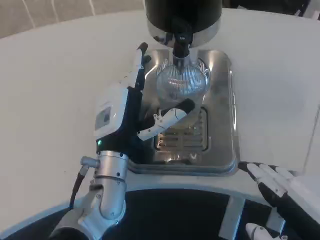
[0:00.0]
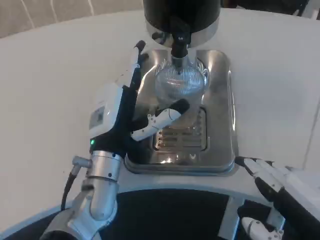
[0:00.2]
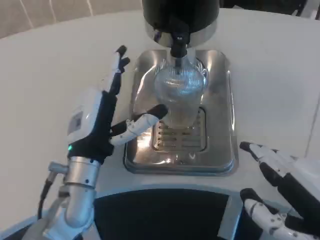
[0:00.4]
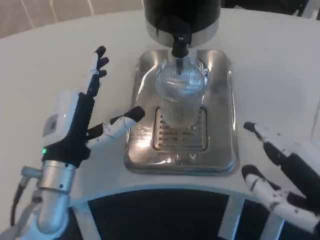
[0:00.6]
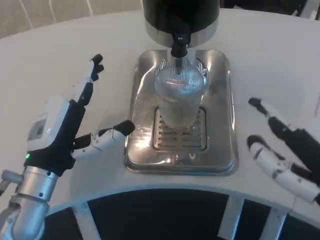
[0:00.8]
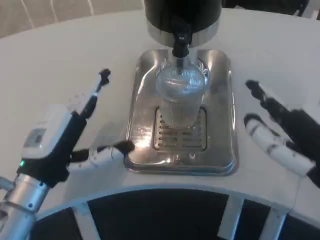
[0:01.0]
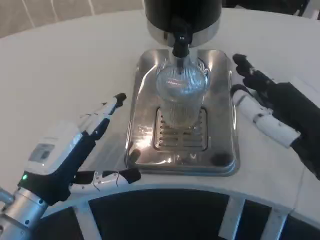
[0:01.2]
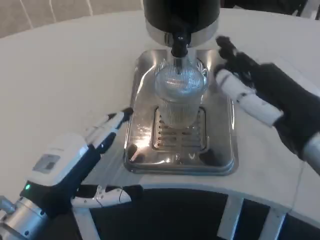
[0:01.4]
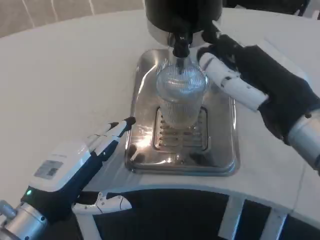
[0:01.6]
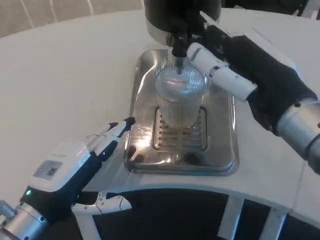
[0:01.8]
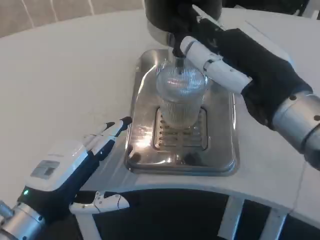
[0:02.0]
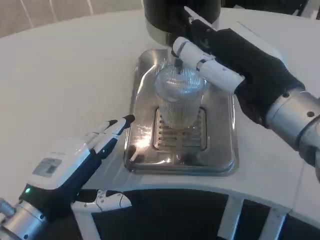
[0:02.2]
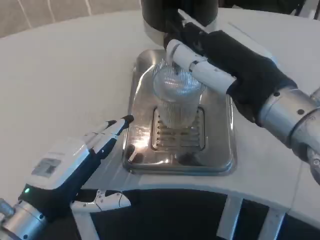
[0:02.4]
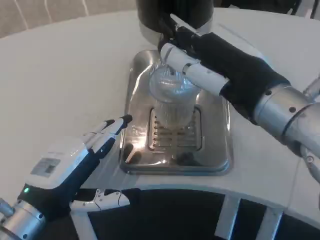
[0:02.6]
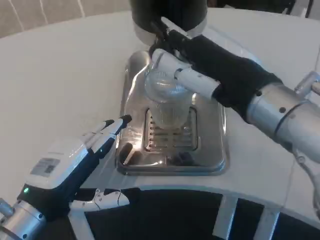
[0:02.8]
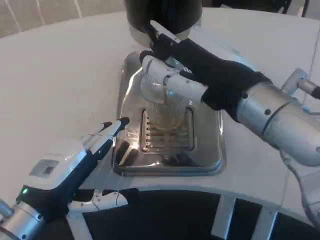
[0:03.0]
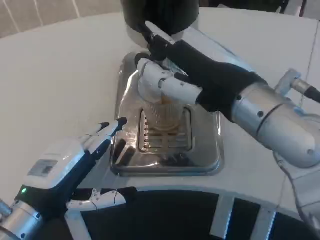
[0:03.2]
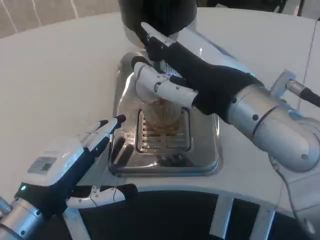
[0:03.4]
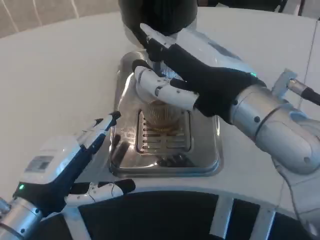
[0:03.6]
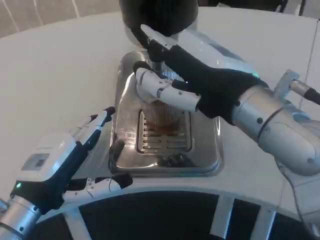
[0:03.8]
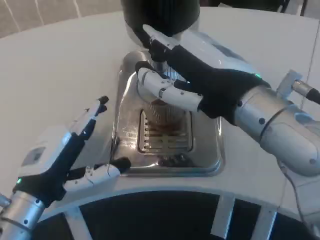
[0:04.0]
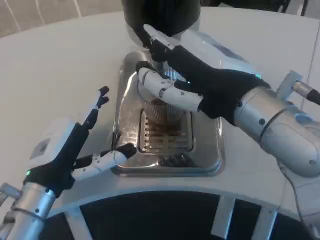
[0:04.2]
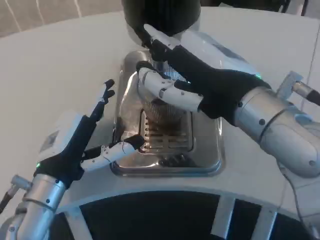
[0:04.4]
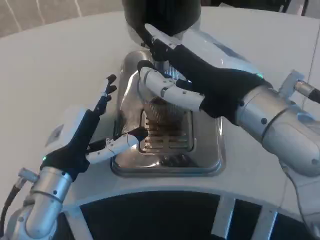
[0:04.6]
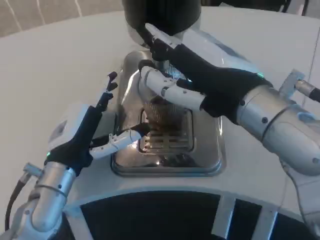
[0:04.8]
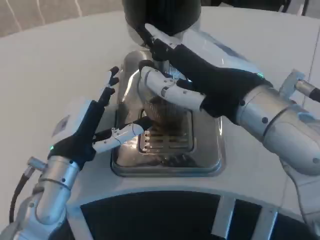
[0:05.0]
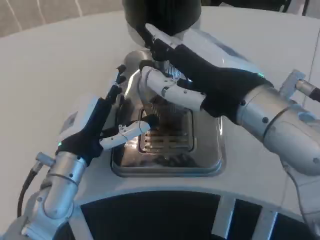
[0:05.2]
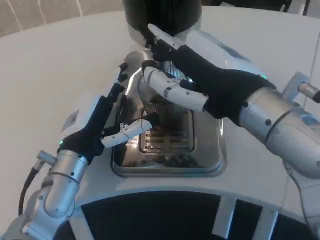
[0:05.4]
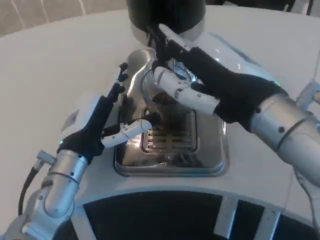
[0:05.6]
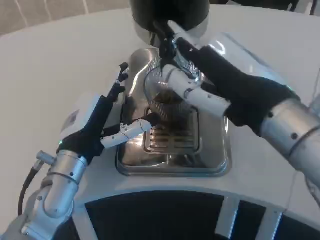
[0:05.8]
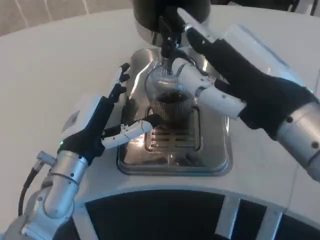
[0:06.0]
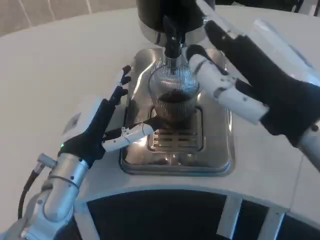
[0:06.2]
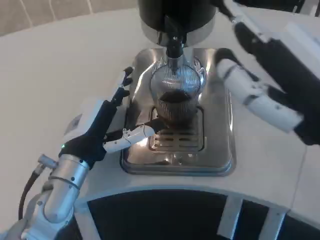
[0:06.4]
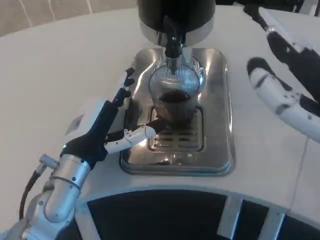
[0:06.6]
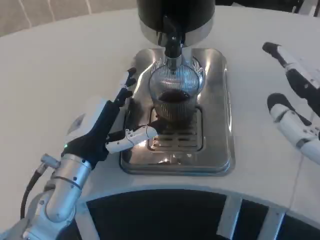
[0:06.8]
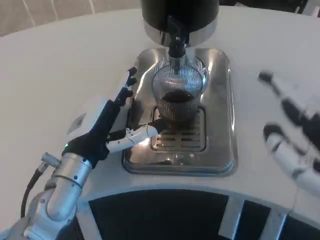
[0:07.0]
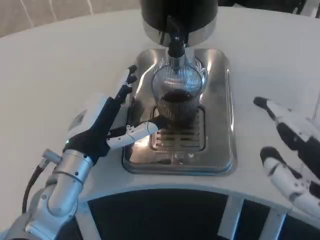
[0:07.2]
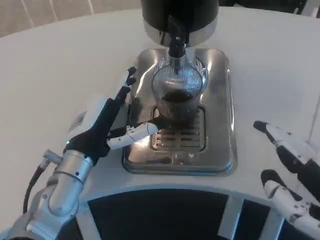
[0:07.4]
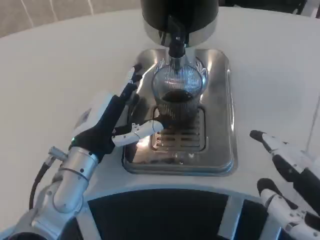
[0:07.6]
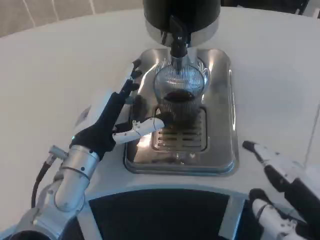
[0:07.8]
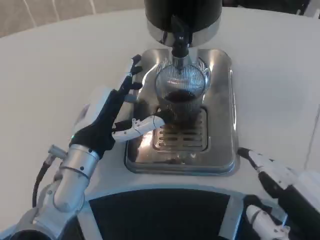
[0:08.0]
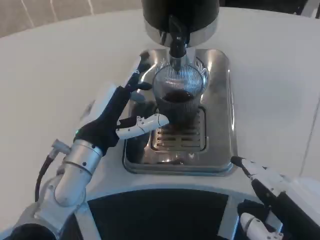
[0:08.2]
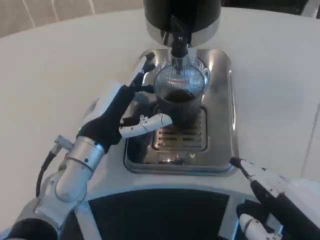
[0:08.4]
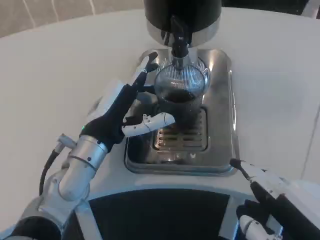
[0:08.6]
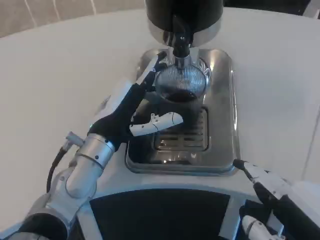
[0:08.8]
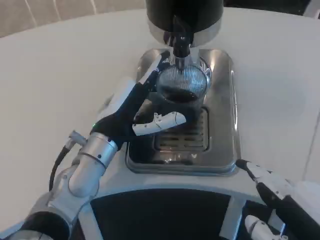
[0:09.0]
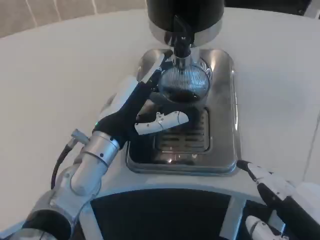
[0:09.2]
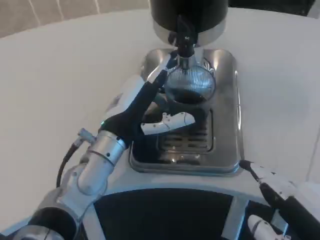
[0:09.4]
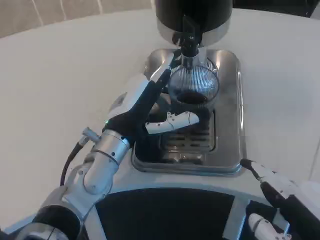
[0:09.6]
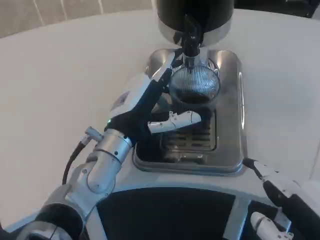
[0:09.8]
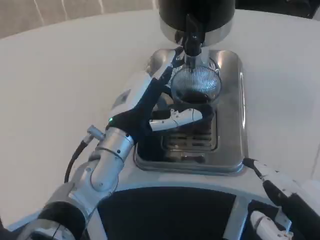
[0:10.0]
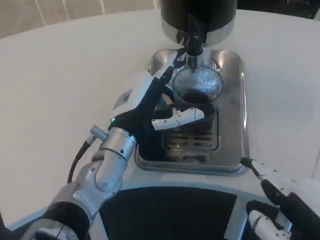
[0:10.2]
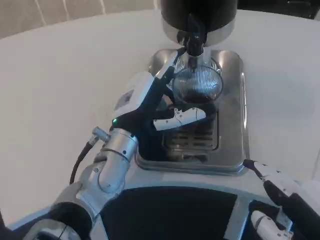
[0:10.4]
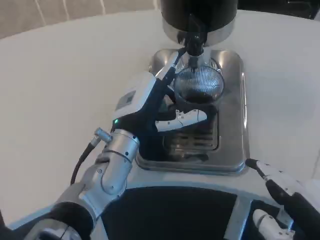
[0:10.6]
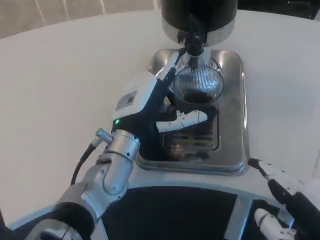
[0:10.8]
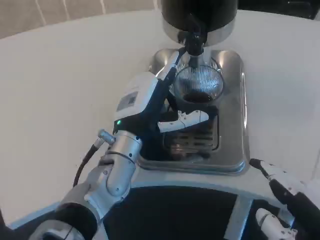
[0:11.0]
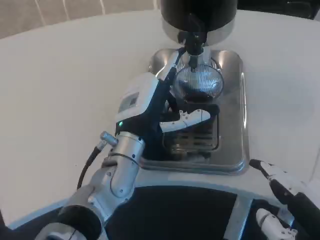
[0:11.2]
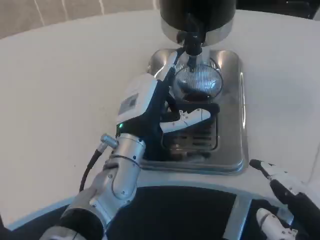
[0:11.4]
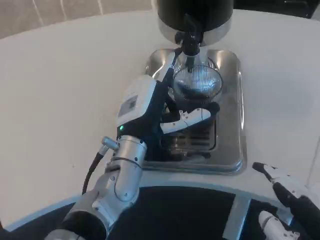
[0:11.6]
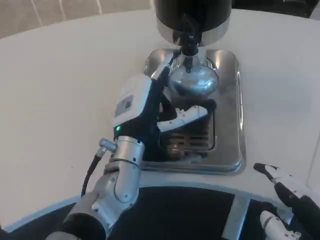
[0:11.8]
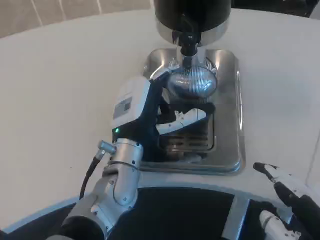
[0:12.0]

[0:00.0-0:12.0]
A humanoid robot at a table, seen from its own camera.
Task of the whole recording: Grasp the cup under the faucet to collect the drink, then remove the cup.
0:00.0 to 0:01.6: The left hand heads to the left and backward, covering approximately 15 cm, while the right hand travels forward and upward by about 10 cm.
0:01.6 to 0:03.0: The right hand moves approximately 5 cm.
0:03.0 to 0:04.4: The left hand shifts by approximately 5 cm.
0:04.4 to 0:06.0: The right hand moves some 5 cm.
0:06.0 to 0:07.6: The right hand shifts approximately 15 cm backward, downward and to the right.
0:10.4 to 0:12.0: The hands move only a little.

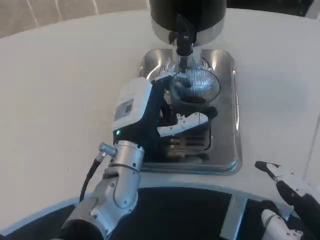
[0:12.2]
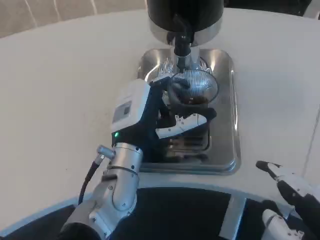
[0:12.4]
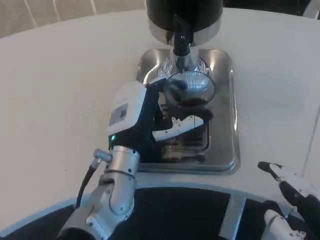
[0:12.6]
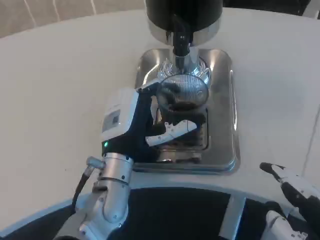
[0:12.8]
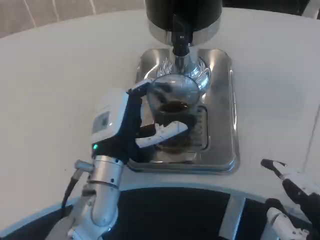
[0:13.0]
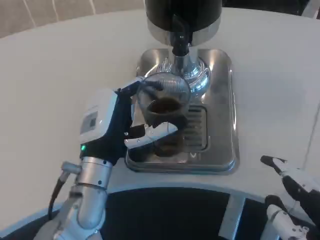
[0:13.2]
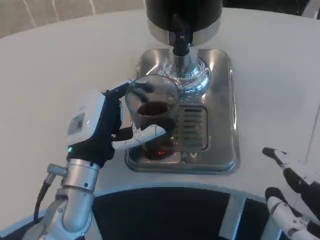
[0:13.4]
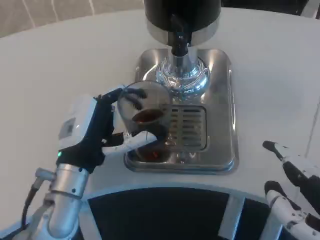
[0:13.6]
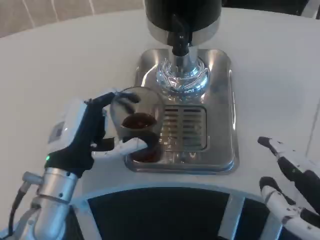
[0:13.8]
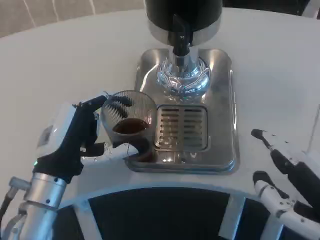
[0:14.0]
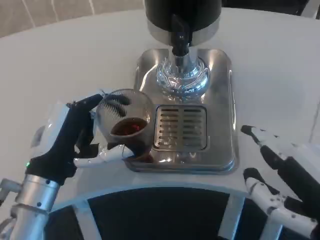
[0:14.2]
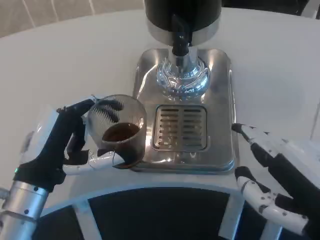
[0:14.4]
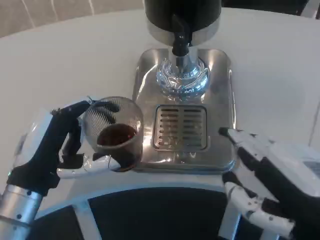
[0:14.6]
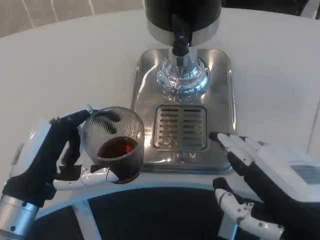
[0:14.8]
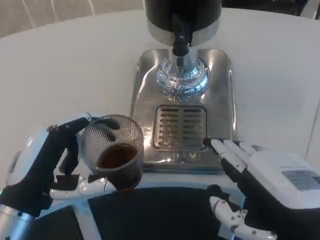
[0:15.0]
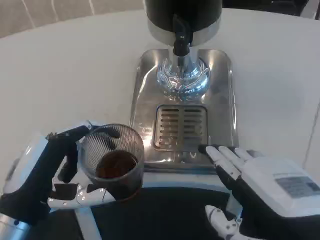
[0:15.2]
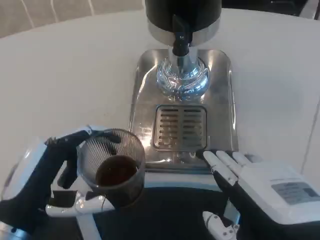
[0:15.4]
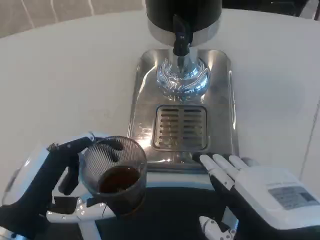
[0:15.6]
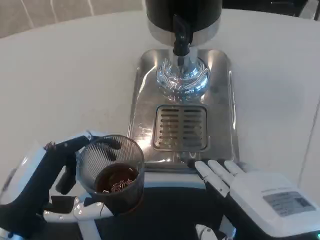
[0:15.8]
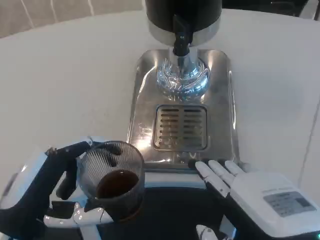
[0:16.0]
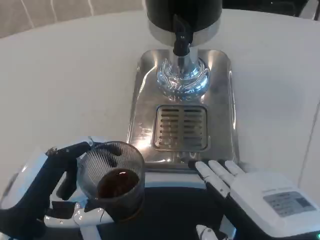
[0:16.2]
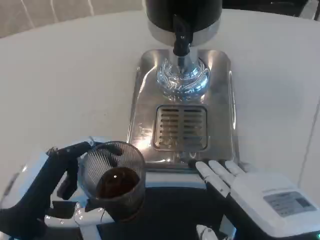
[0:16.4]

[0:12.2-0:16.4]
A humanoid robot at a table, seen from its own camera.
Task of the whole recording: Grasp the cup under the faucet to collect the drink, then remove the cup.
0:12.2 to 0:13.6: The left hand shifts roughly 10 cm to the left.
0:13.6 to 0:15.0: The left hand is displaced backward and to the left by about 10 cm.

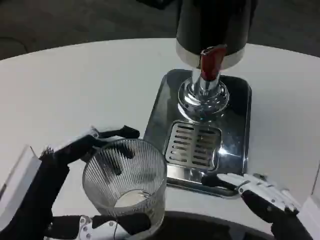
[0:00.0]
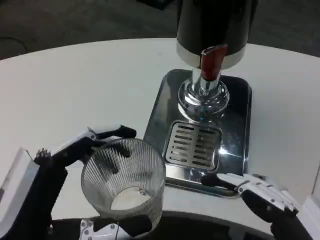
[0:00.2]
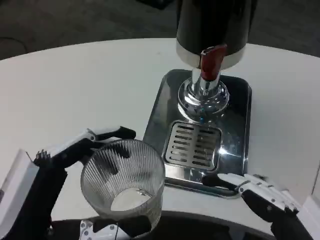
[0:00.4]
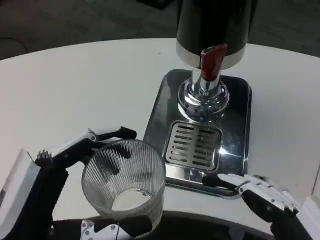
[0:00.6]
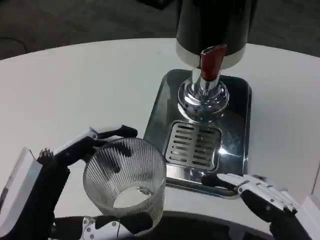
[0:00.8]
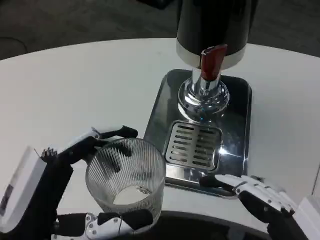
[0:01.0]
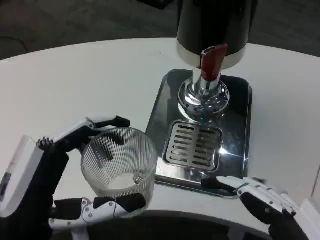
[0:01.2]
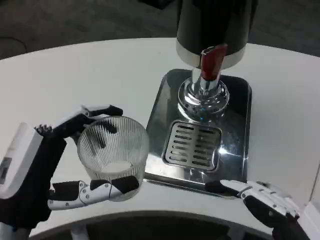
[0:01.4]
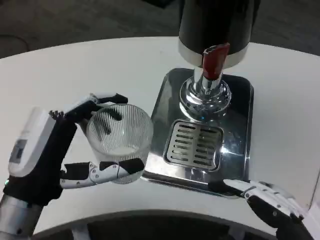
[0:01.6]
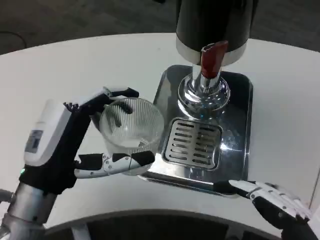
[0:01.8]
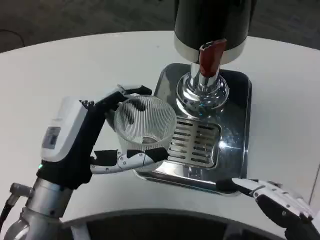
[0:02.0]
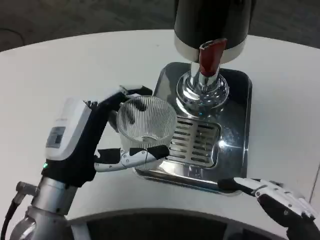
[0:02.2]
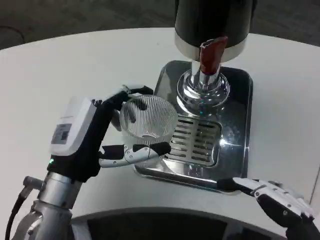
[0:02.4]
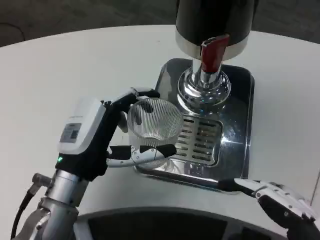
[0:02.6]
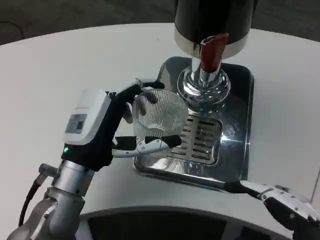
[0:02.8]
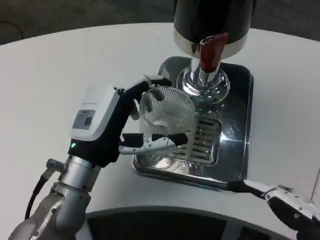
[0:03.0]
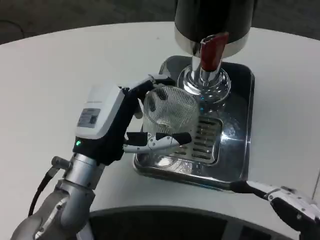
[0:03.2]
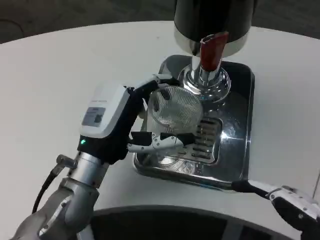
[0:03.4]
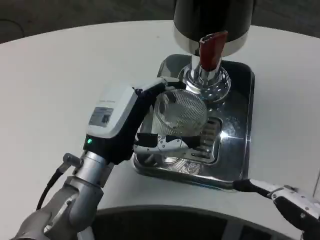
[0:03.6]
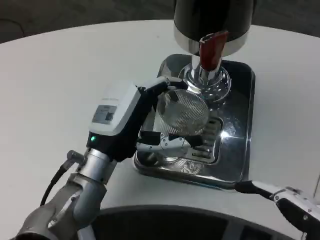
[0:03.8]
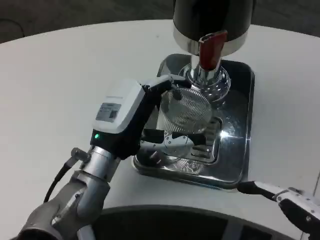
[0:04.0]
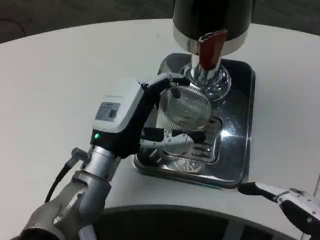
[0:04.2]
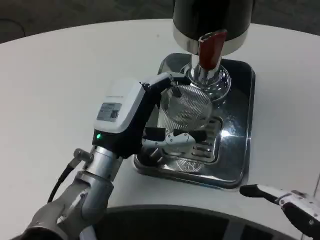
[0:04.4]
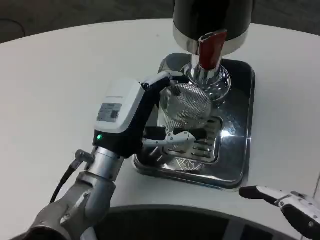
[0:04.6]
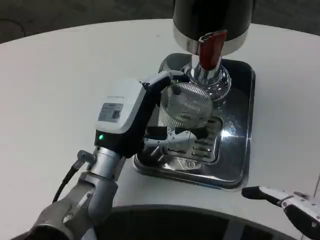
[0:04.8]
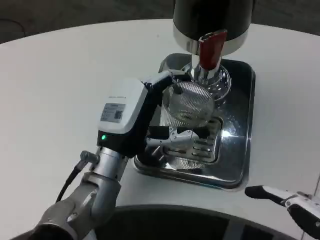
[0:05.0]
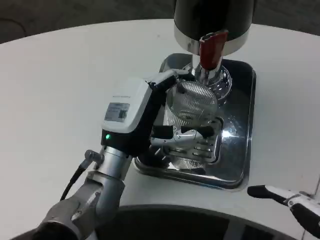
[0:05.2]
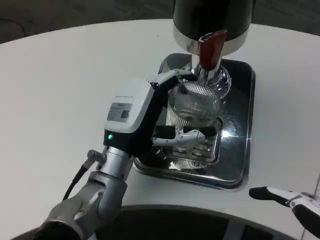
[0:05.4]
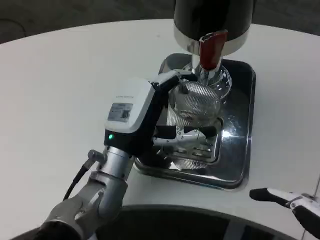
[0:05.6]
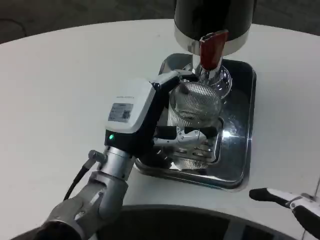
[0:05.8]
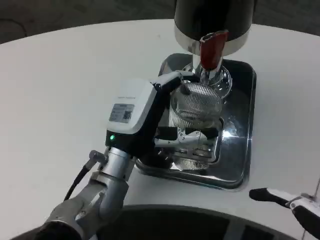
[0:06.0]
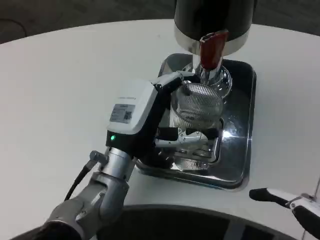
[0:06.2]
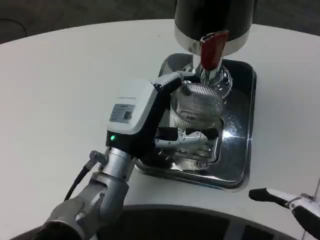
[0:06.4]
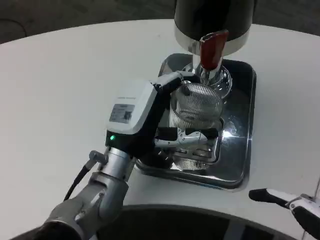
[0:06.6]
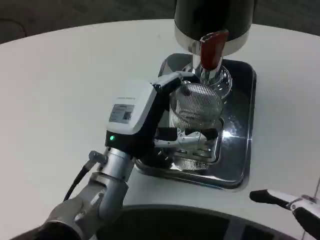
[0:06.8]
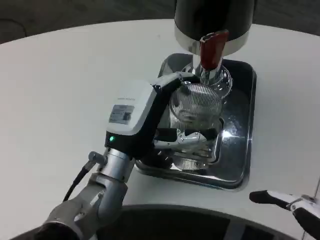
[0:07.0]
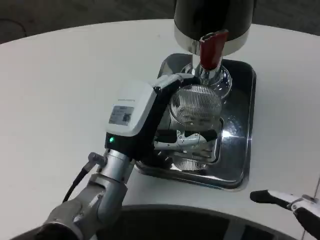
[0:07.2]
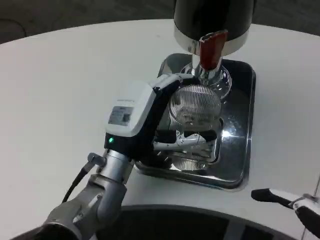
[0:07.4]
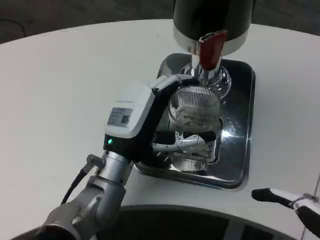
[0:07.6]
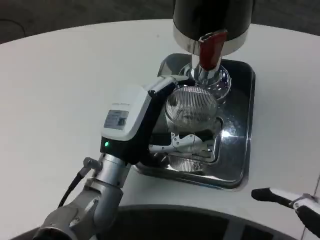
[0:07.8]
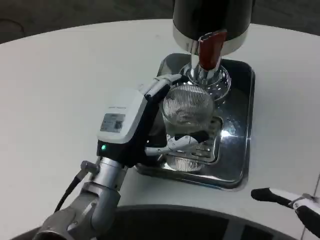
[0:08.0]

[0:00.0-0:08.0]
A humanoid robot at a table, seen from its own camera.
Task of the whole recording: Grasp the cup under the faucet to collect the drink, then remove the cup.
0:00.0 to 0:01.6: The left hand moves forward, some 10 cm.
0:01.6 to 0:03.2: The left hand moves forward and to the right, some 10 cm.
0:04.8 to 0:08.0: There are only small adjustments of the hands.
